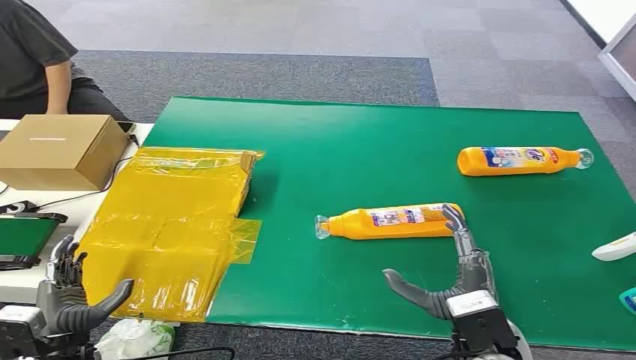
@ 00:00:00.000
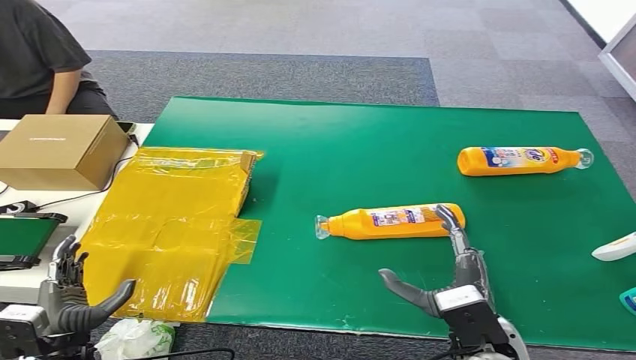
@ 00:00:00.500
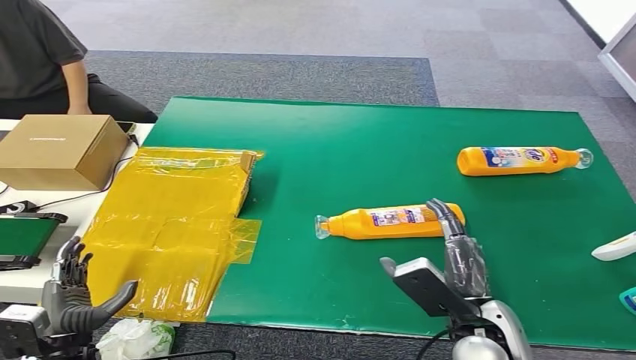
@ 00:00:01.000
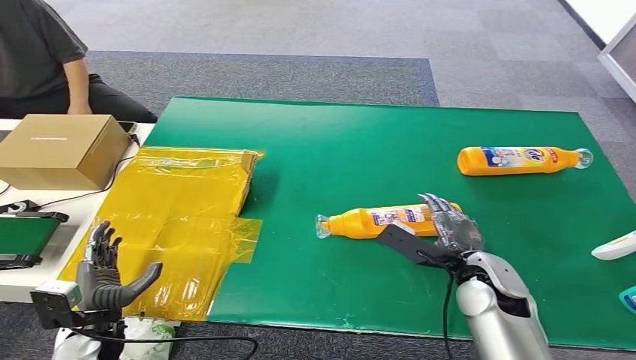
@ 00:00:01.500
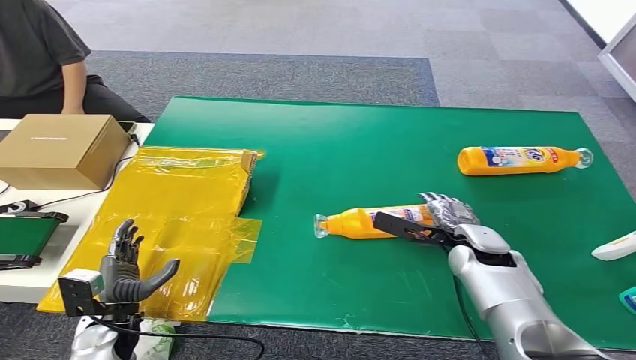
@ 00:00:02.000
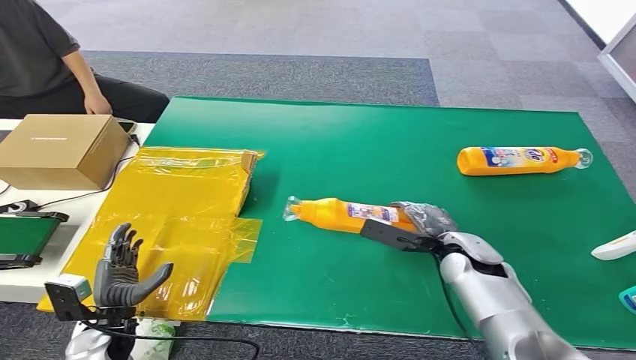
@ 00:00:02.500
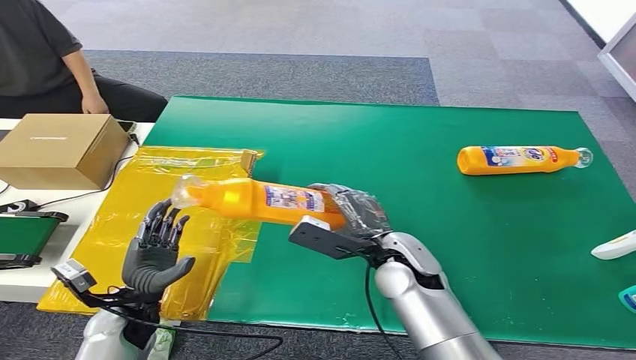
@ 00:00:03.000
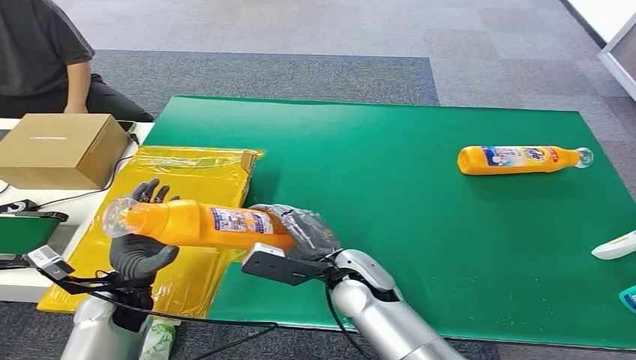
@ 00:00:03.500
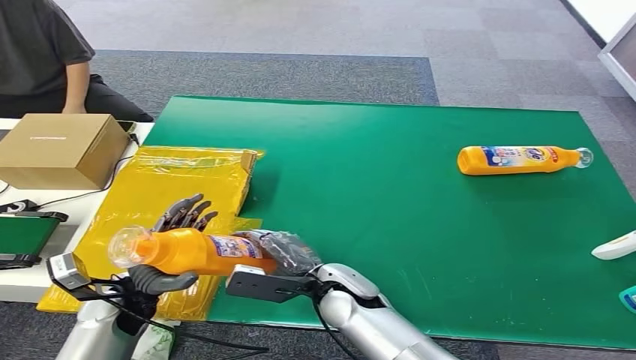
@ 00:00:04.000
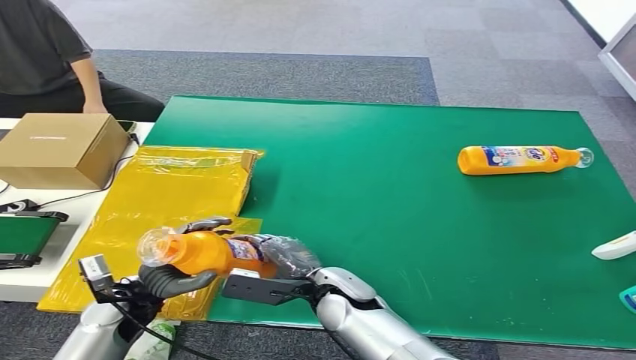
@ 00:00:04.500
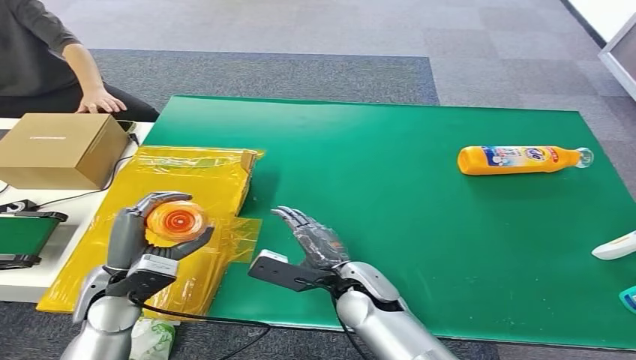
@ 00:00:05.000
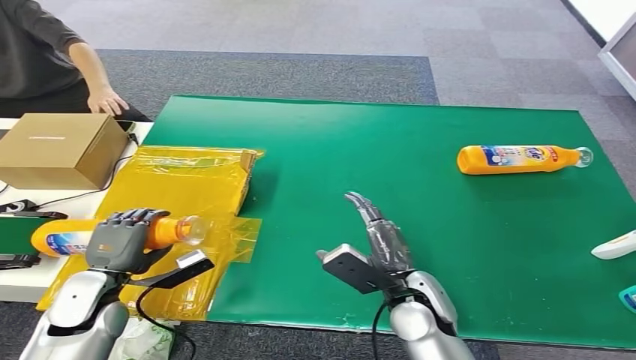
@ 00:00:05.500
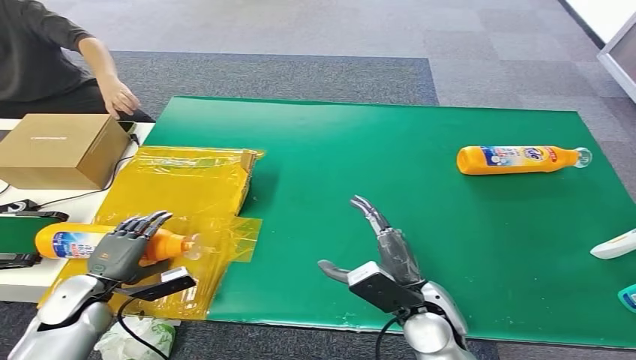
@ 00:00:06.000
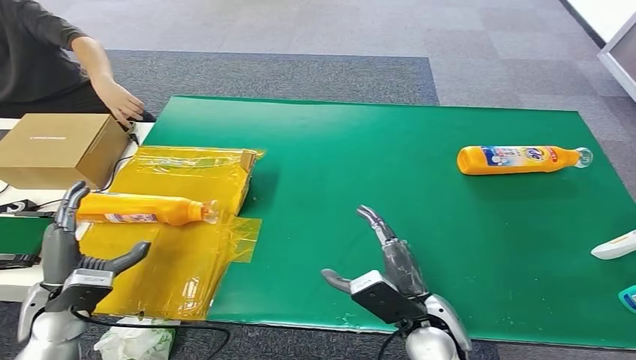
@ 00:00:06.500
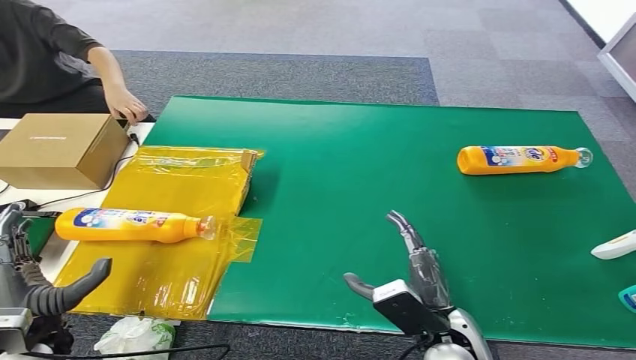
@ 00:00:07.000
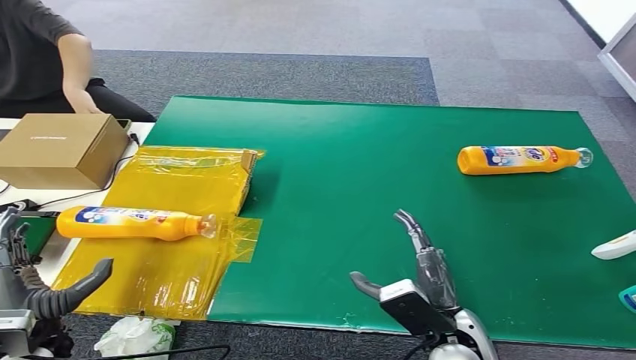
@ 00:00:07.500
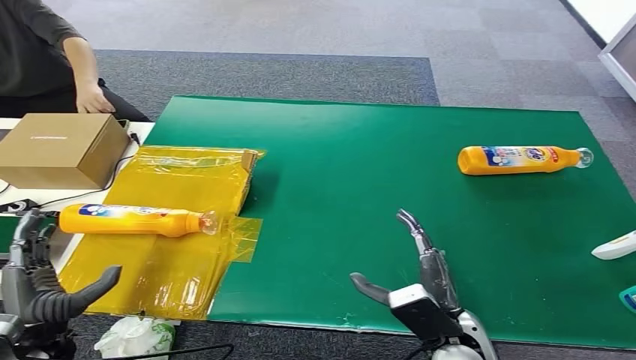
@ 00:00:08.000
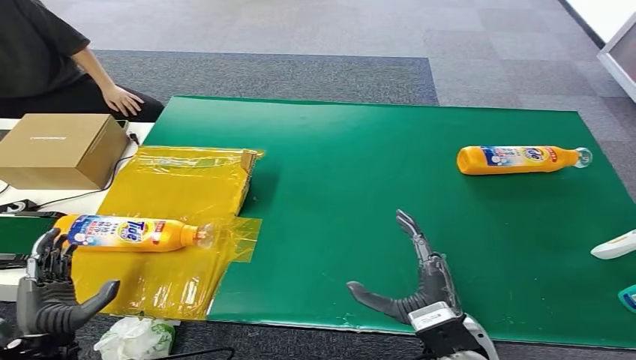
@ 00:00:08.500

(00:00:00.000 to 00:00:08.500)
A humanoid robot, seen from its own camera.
Step, 00:00:00.000 - 00:00:02.500: Pick up the bottle from the table.
Step, 00:00:03.000 - 00:00:08.500: Turn the bottle to the front side.
00:00:02.000 - 00:00:04.000: The left hand shifts about 5 cm upward, while the right hand travels to the left and backward by about 25 cm.
00:00:04.000 - 00:00:06.500: The right hand travels to the right and backward by some 15 cm, while the left hand is displaced to the left by roughly 10 cm.
00:00:06.500 - 00:00:08.500: The left hand heads backward, covering roughly 5 cm.

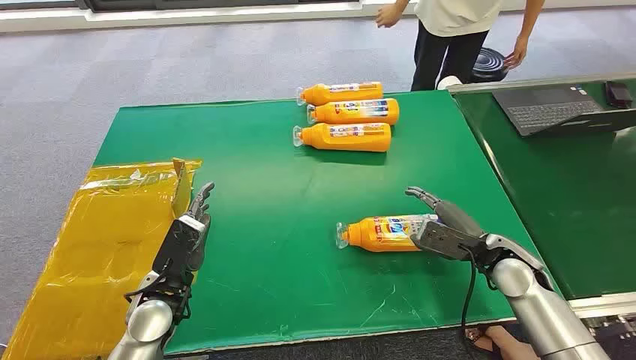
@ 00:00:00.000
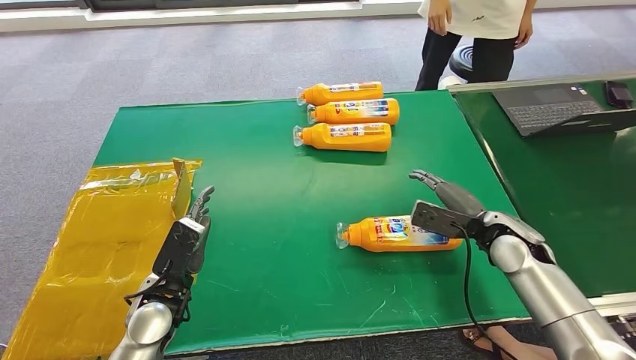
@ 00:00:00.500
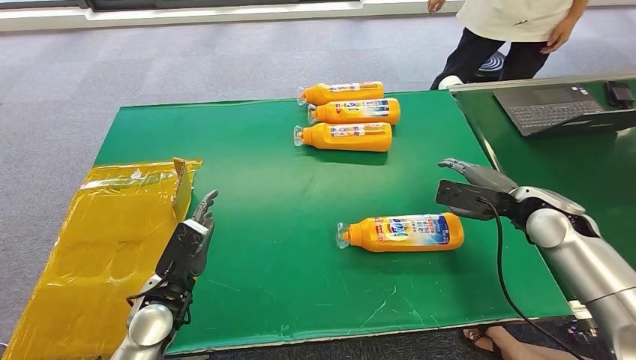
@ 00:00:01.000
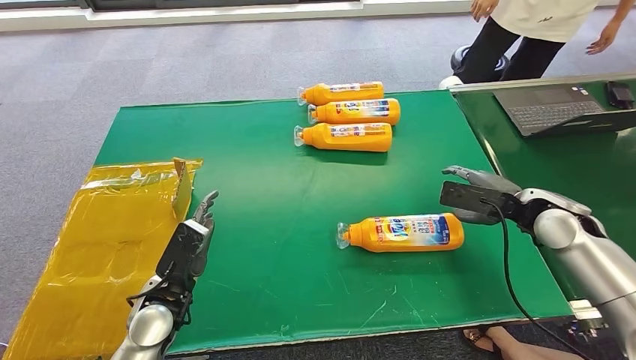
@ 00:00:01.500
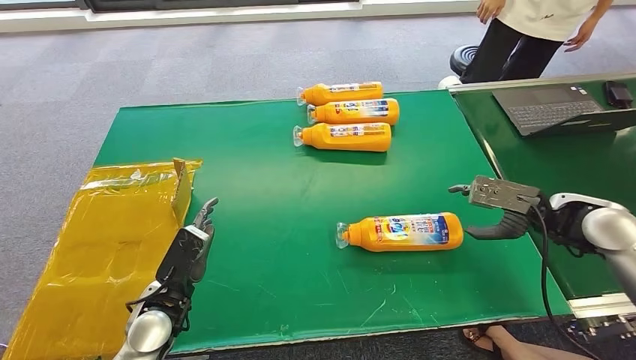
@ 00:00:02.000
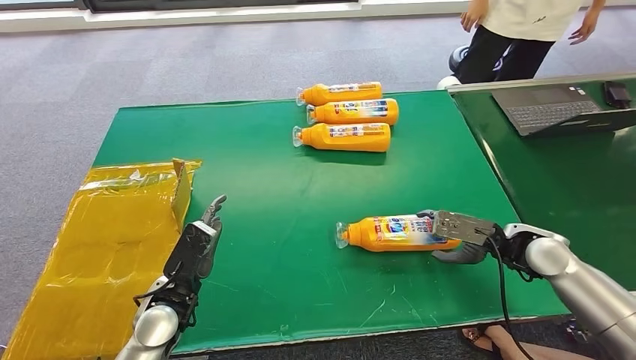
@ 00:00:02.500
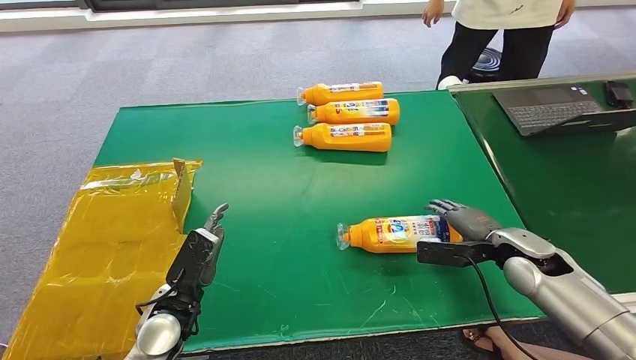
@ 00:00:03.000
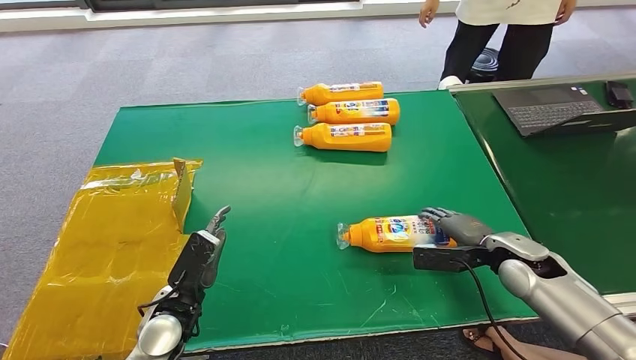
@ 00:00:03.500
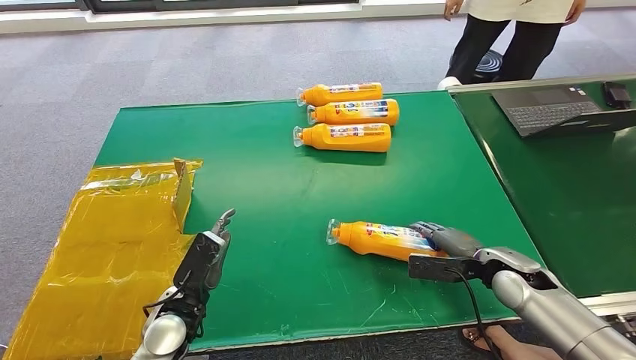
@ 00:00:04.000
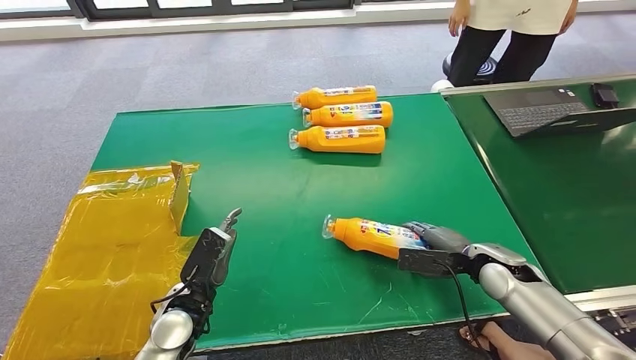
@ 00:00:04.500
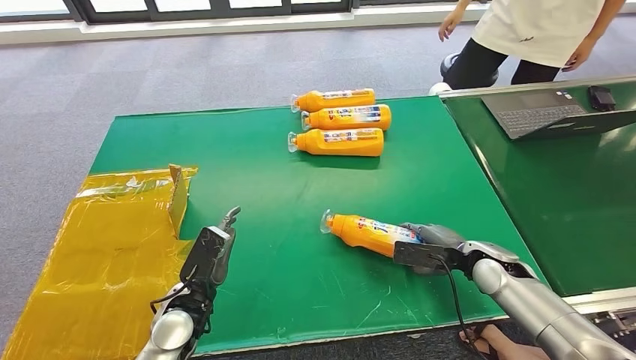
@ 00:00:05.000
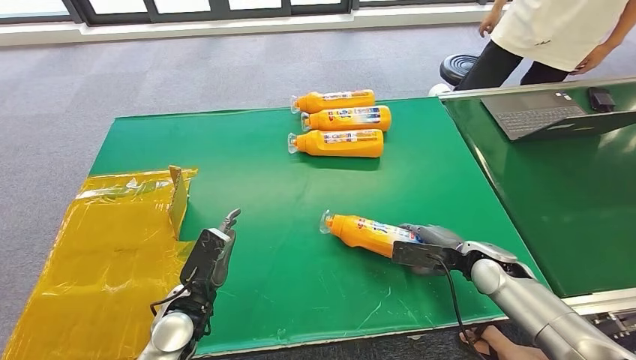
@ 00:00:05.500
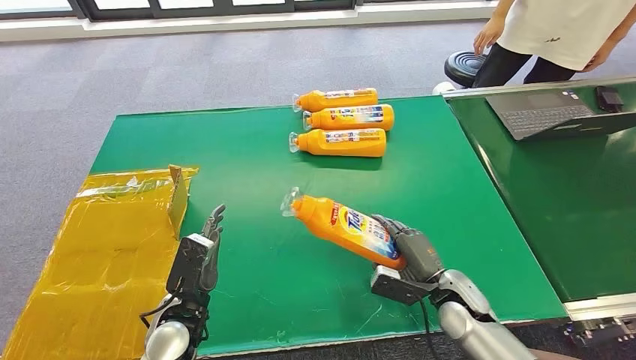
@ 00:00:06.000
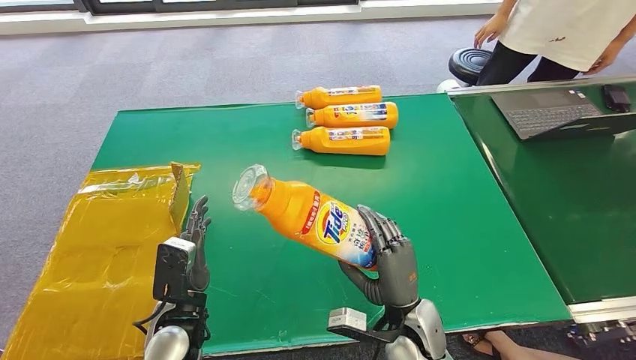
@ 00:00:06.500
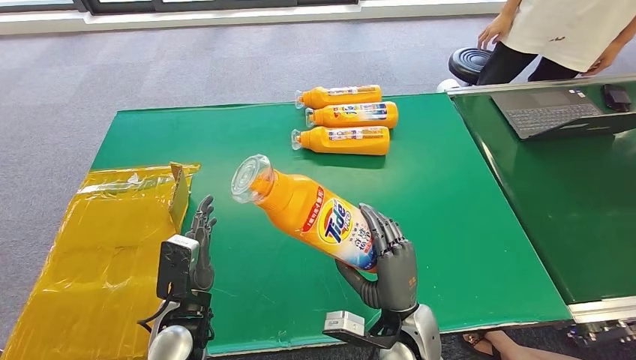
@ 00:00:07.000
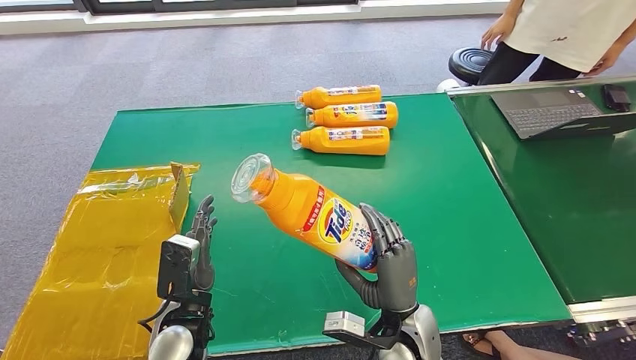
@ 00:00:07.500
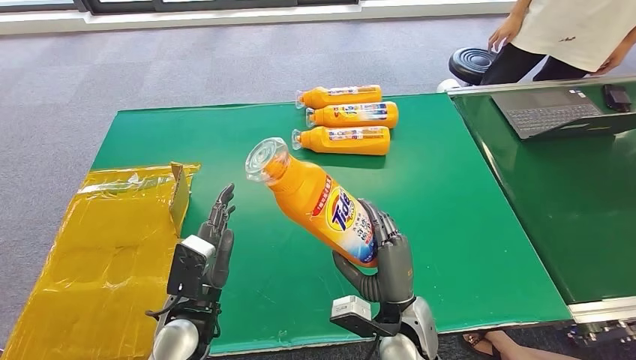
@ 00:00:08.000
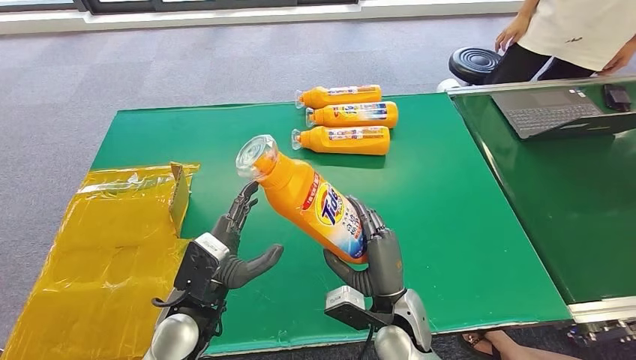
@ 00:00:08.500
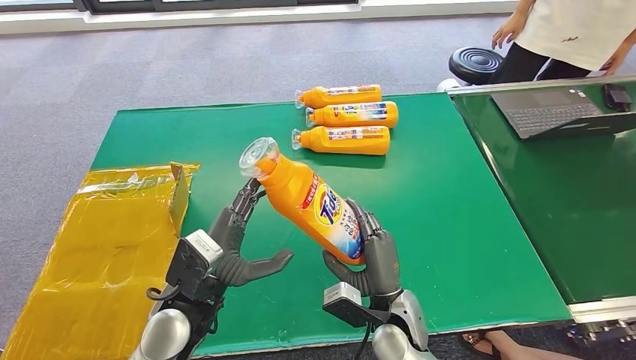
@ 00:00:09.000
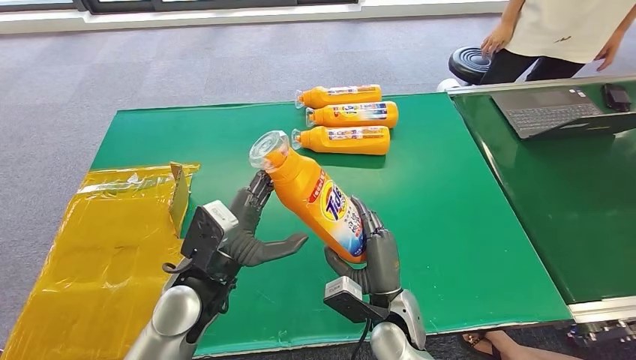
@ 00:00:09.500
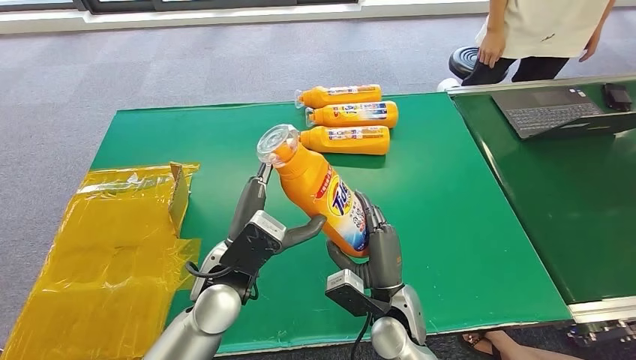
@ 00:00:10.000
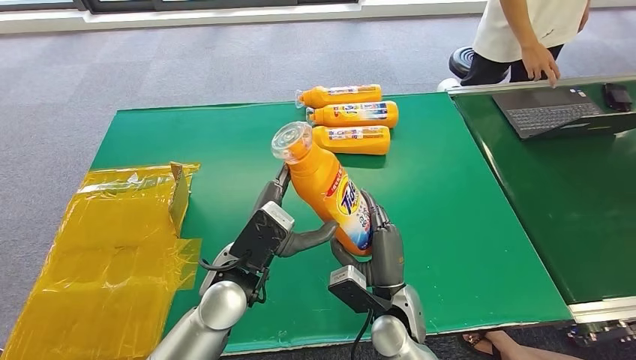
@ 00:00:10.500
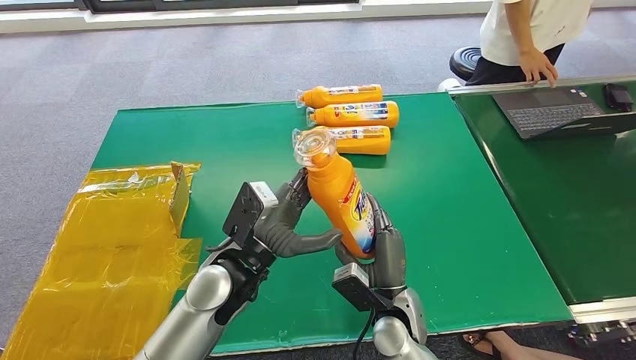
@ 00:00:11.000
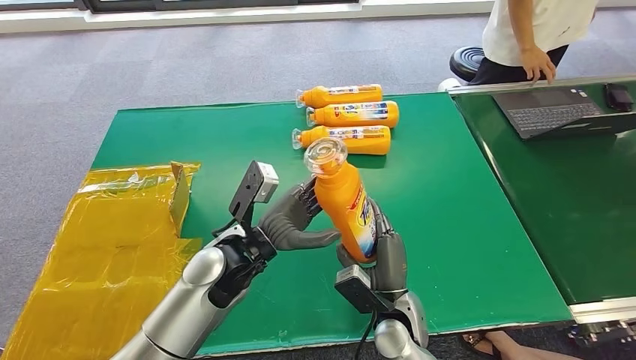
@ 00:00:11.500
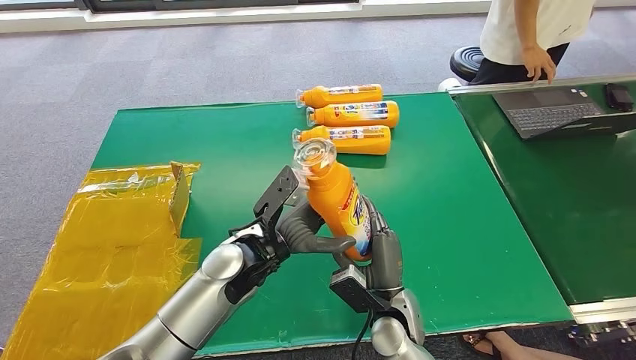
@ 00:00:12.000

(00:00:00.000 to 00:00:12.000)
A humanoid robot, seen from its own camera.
Step, 00:00:00.000 - 00:00:07.000: Pick up the bottle from the table.
00:00:02.000 - 00:00:04.000: The right hand travels downward and to the left by some 15 cm.
00:00:08.000 - 00:00:10.000: The left hand shifts approximately 10 cm upward and to the right.
